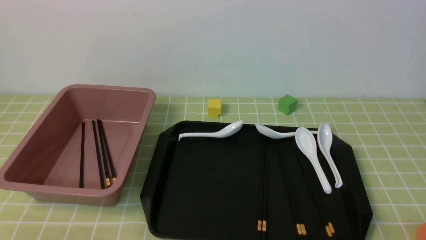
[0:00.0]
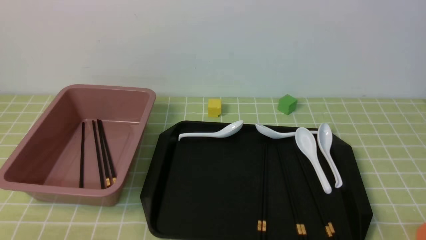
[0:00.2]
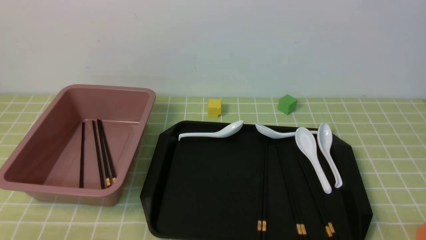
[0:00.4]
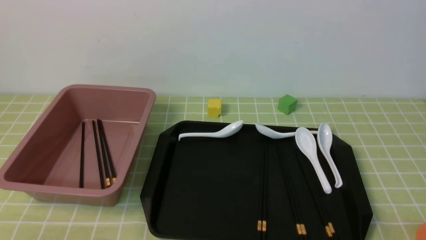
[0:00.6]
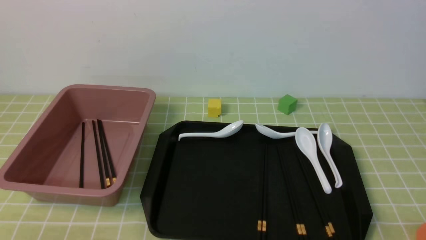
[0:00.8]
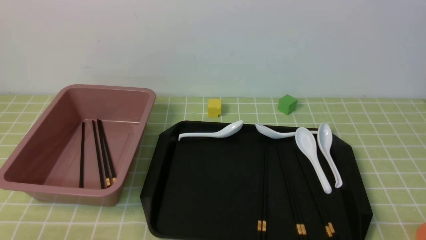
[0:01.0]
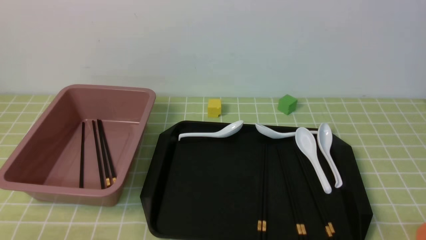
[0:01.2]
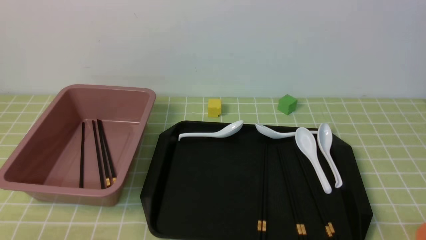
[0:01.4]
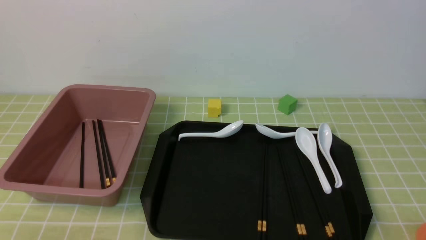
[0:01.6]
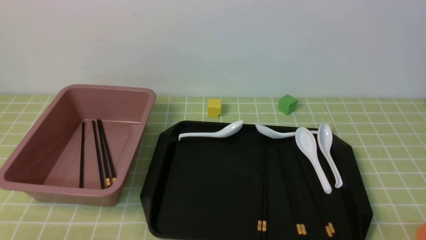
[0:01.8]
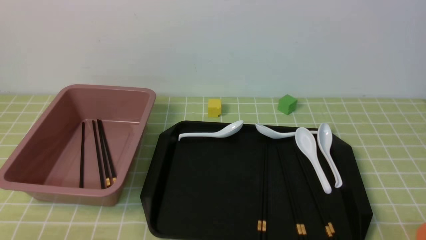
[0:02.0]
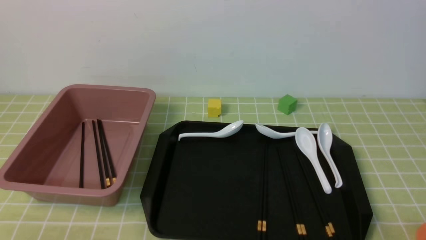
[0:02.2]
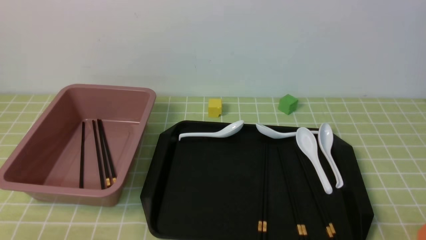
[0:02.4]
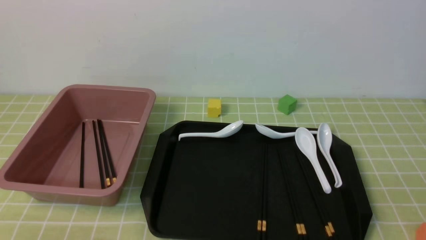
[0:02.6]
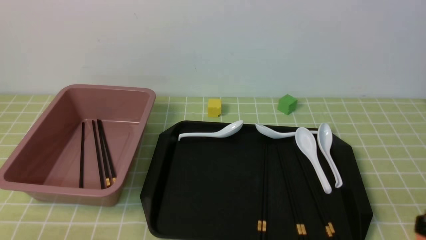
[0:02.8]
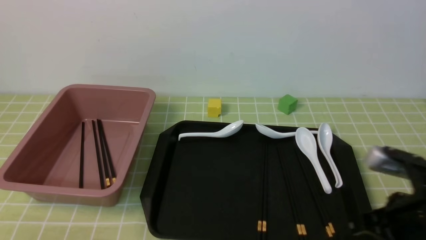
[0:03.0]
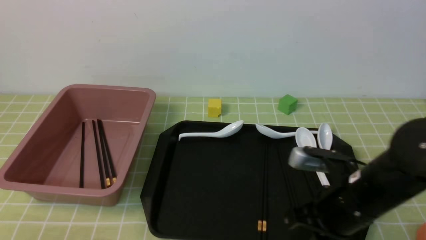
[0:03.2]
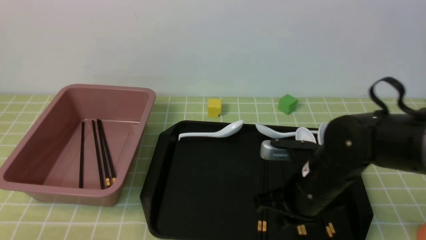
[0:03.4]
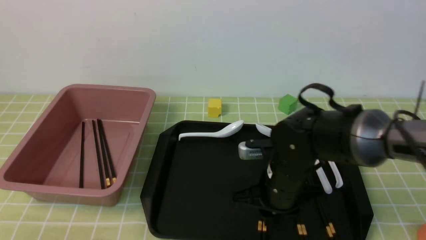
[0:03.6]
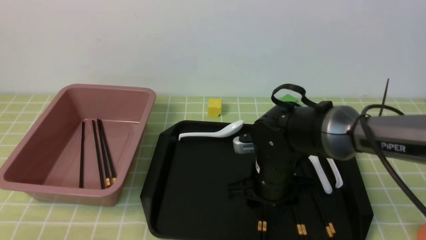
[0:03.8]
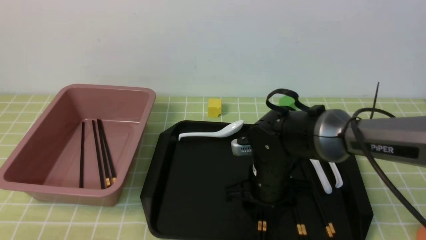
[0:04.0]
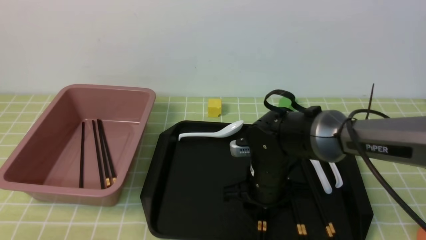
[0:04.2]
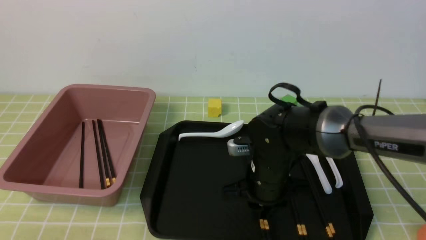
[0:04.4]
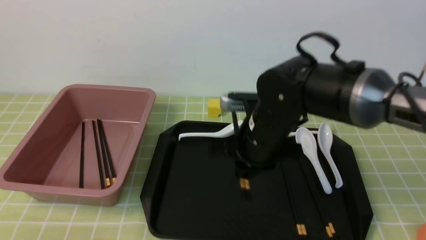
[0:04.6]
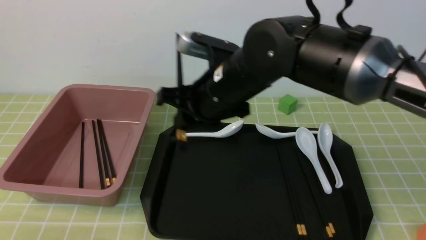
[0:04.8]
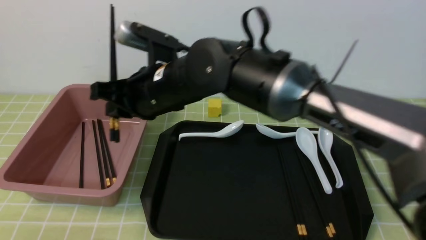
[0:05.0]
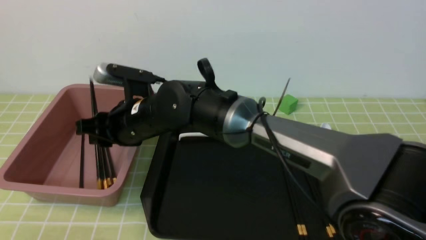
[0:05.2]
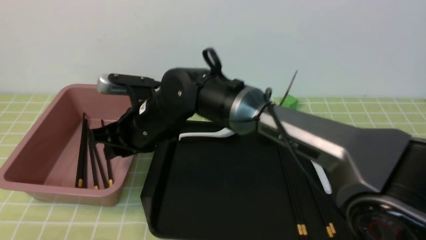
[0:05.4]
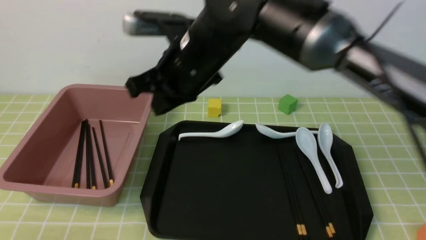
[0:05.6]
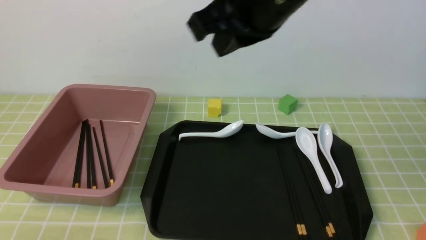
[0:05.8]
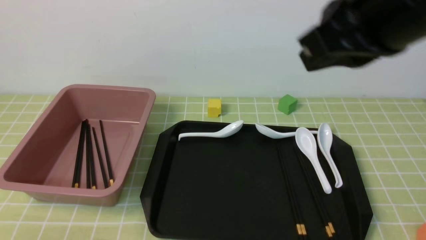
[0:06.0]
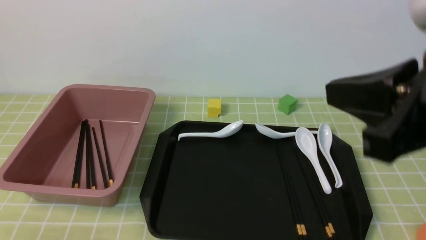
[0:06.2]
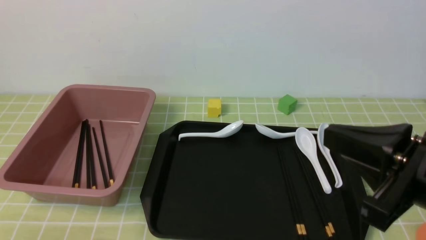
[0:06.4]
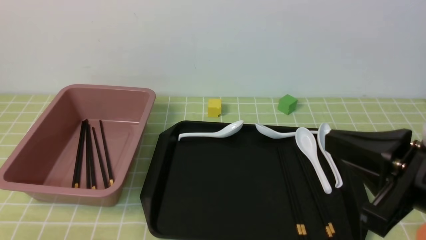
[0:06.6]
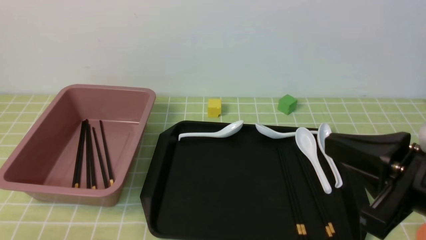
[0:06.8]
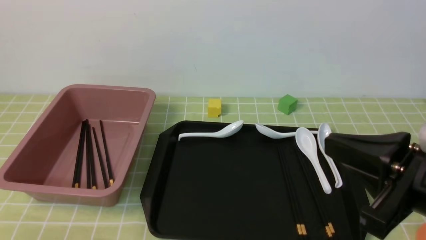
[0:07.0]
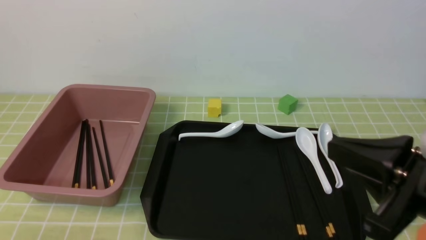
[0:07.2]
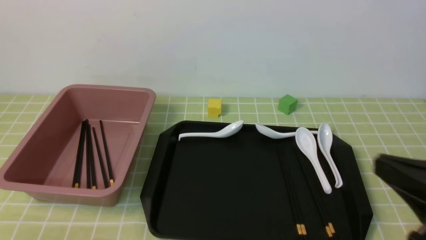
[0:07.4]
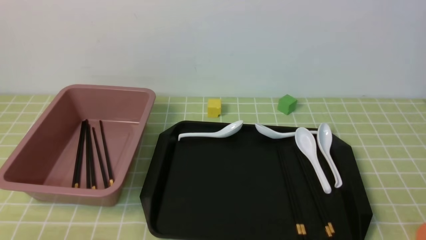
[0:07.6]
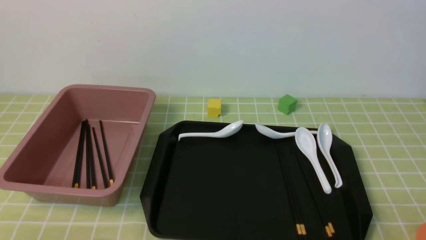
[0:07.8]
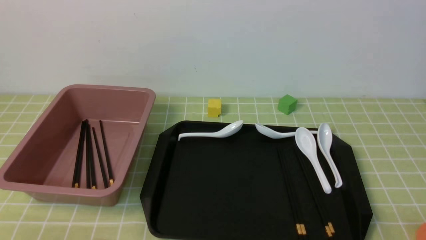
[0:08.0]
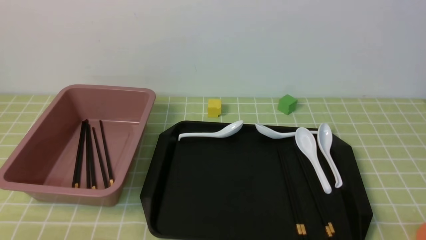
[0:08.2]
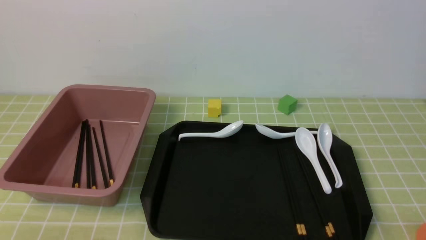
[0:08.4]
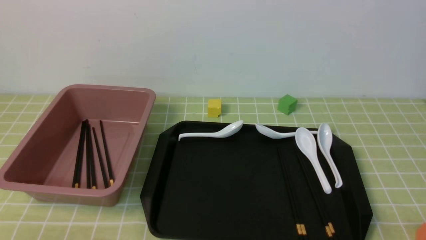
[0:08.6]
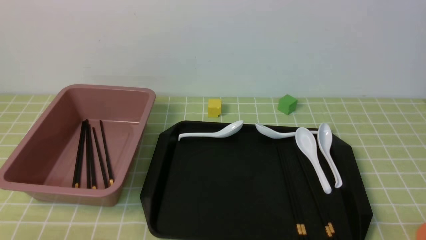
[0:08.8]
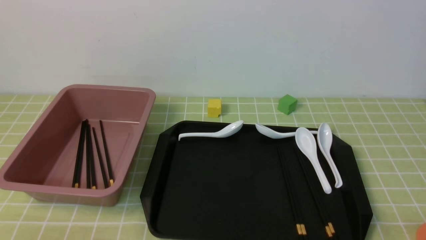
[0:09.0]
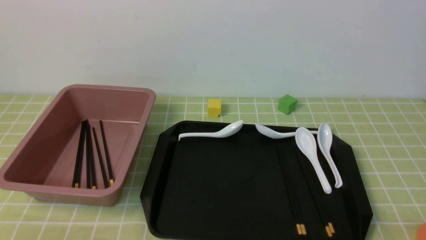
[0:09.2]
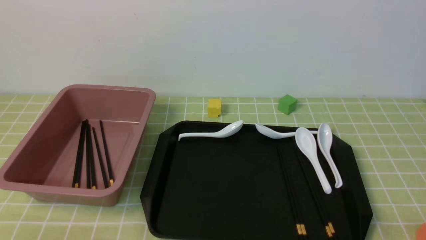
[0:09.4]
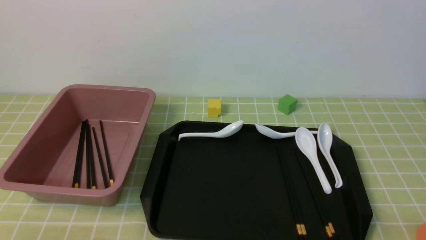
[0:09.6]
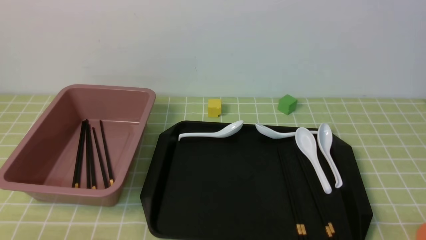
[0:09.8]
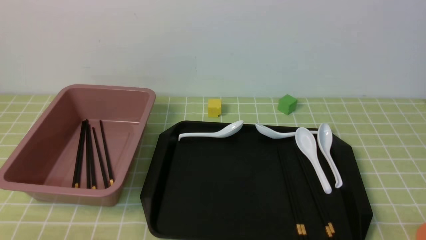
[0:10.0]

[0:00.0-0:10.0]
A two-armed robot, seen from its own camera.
Step, 0:00.0 to 0:04.4: use the right arm to grab a pair of chopsticks.
Step, 0:04.8 to 0:05.6: use the right arm to put the chopsticks into the lunch box.
0:00.0 to 0:01.4: Neither gripper changes place.
0:02.8 to 0:04.2: The right gripper goes approximately 30 cm to the left, forward and downward, and opens up.
0:04.2 to 0:05.8: The right gripper moves upward, about 30 cm, and closes its fingers.
0:05.8 to 0:07.2: The right gripper is displaced to the right, backward and downward by about 25 cm.
0:07.2 to 0:08.6: The right gripper heads downward, to the right and backward, covering about 20 cm.
0:08.6 to 0:10.0: The two grippers keep their place.
